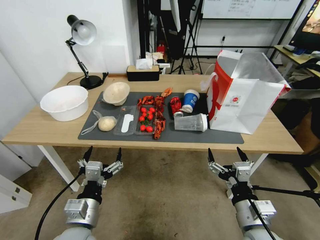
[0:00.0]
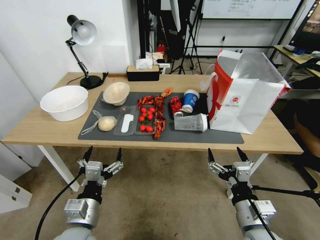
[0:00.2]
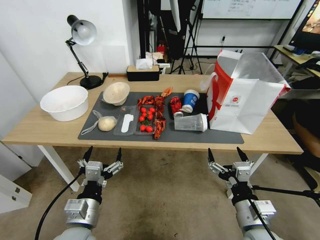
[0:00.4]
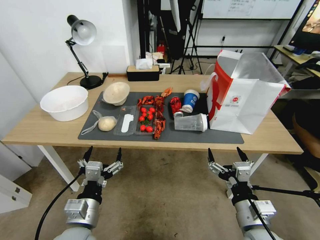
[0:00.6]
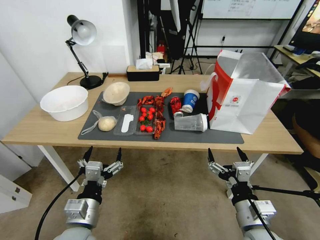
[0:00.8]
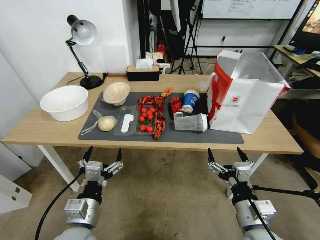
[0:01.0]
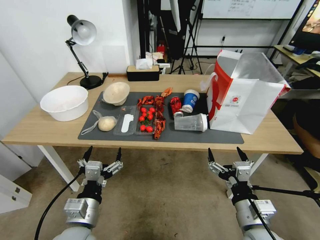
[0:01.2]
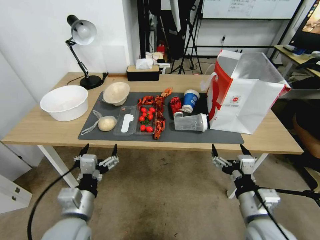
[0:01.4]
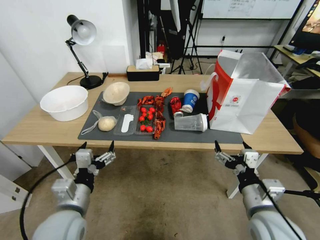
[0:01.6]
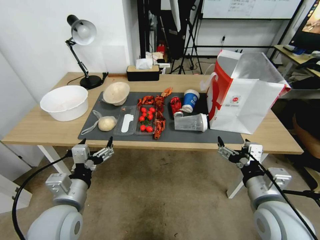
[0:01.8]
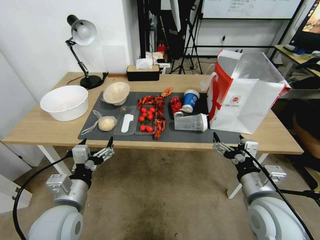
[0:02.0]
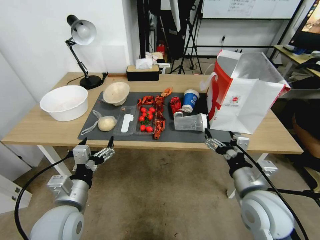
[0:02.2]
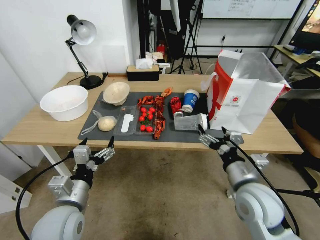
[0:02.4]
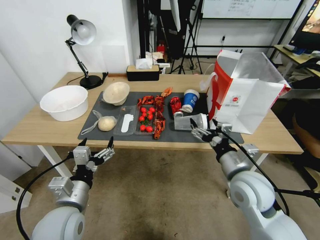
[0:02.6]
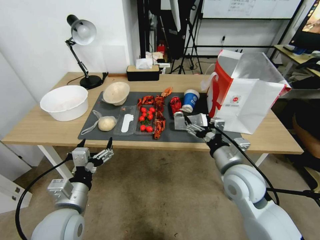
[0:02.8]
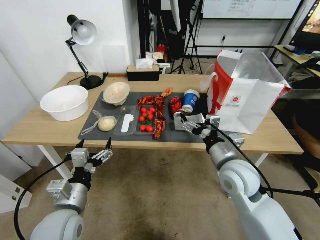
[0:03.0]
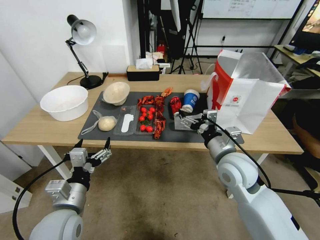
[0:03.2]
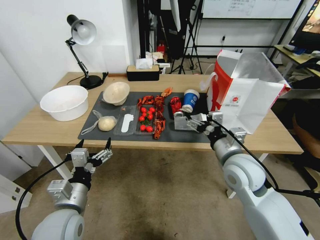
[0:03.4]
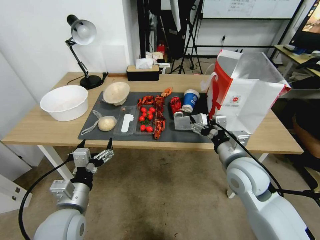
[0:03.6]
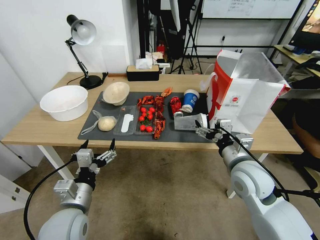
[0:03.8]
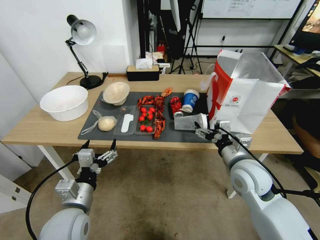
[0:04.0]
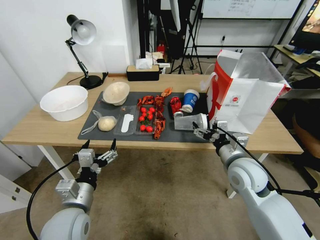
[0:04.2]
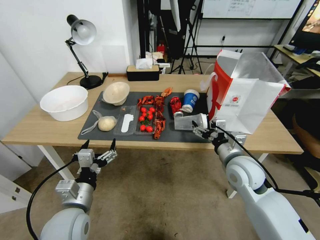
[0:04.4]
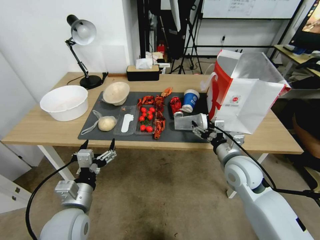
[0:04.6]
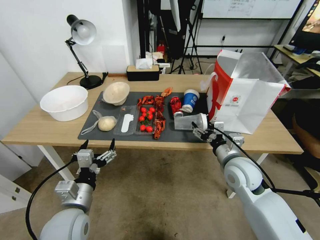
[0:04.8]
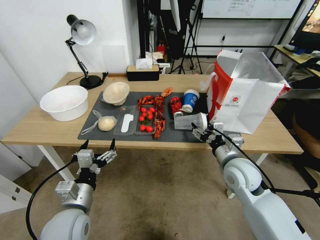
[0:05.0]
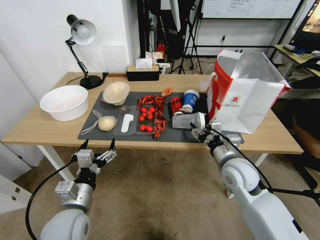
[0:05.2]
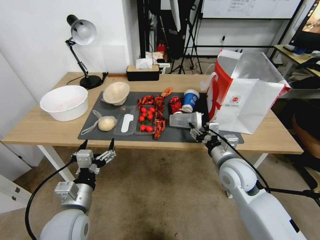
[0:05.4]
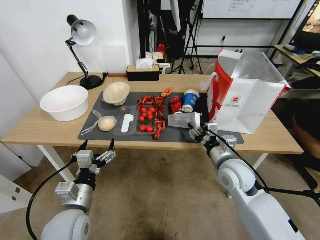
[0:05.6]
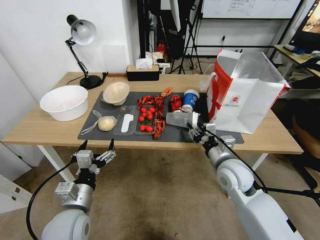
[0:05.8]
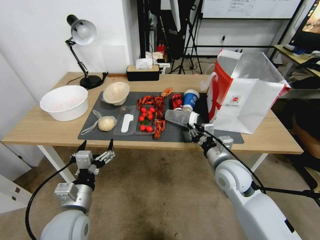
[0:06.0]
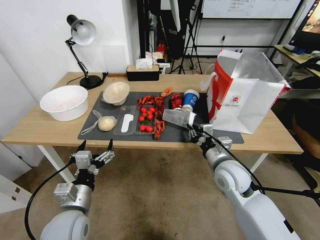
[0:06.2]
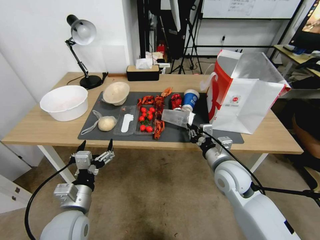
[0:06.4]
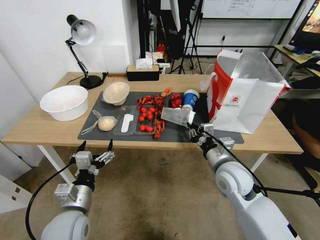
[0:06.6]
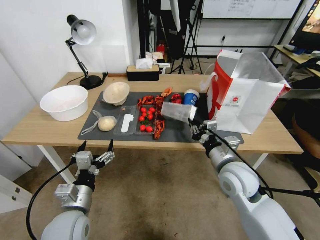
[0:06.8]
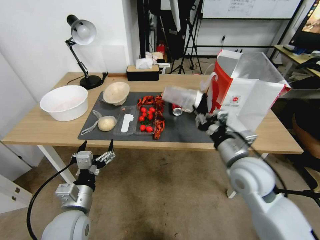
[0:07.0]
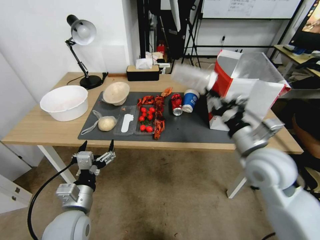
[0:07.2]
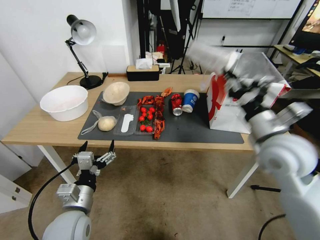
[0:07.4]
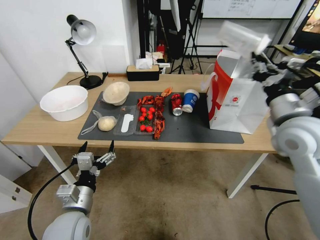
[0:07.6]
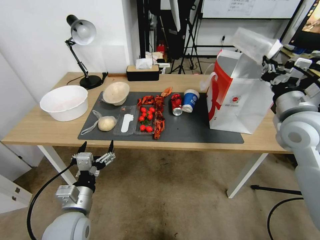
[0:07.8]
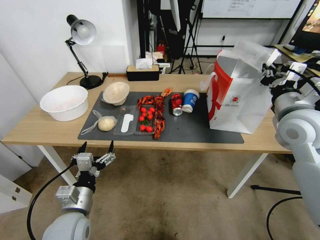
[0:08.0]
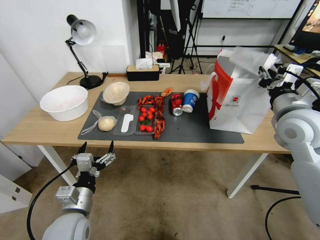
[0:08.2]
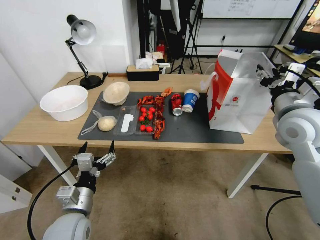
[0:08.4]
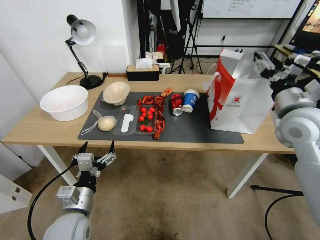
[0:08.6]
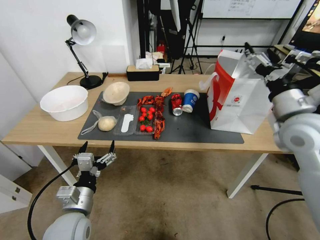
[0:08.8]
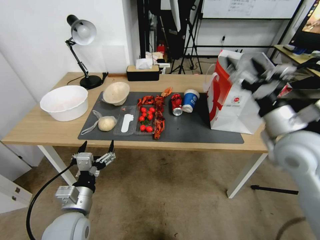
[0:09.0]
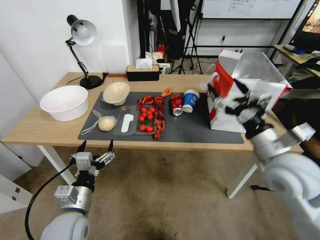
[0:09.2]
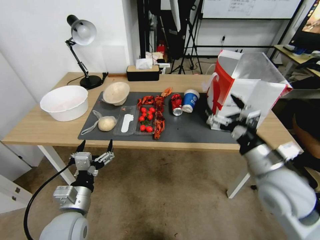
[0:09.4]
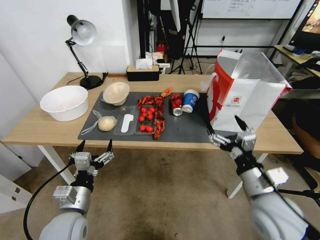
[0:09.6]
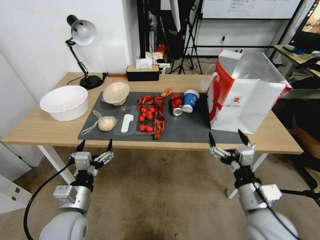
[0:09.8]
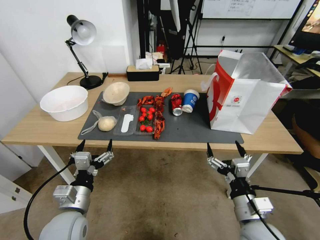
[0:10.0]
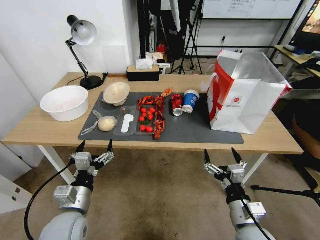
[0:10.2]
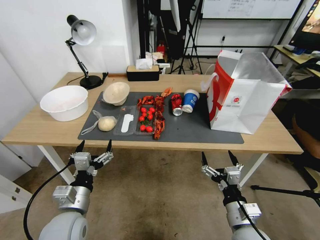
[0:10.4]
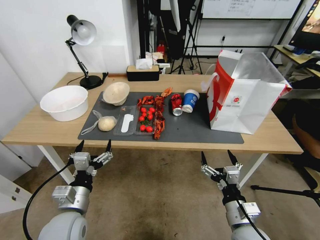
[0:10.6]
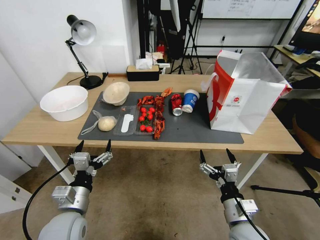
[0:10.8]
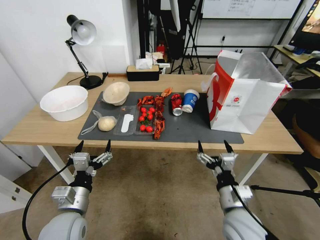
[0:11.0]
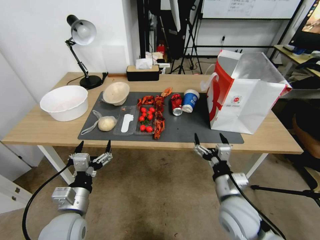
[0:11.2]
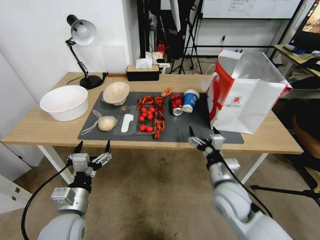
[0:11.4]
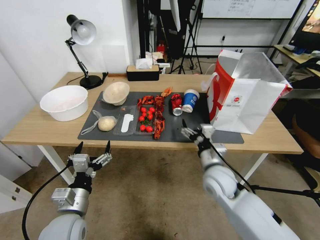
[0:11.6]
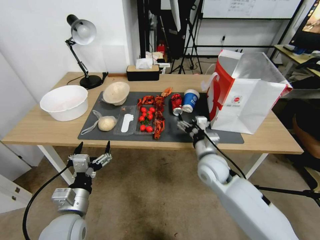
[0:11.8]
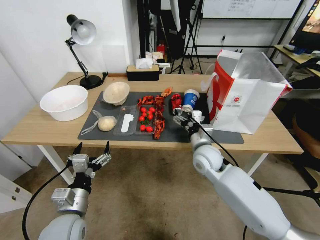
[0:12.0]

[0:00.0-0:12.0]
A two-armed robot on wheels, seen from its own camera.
0:01.6 to 0:03.0: The right gripper is displaced forward by approximately 10 cm.
0:03.0 to 0:04.4: The right gripper changes place by roughly 5 cm.
0:04.4 to 0:06.0: The right gripper closes up.
0:06.0 to 0:07.6: The right gripper is displaced upward and to the right by roughly 20 cm.
0:07.6 to 0:09.0: The right gripper opens up.
0:09.0 to 0:10.4: The right gripper shifts some 25 cm downward and backward.
0:10.4 to 0:12.0: The right gripper shifts approximately 25 cm forward.

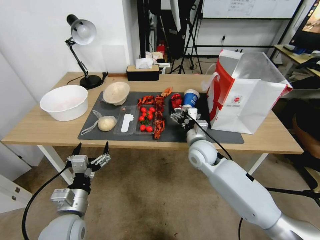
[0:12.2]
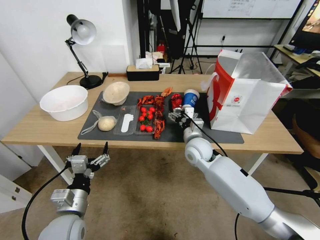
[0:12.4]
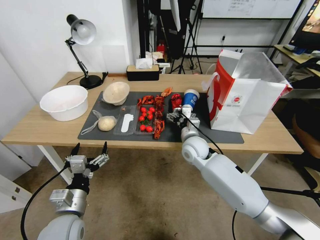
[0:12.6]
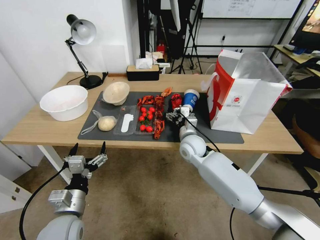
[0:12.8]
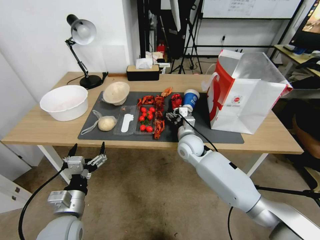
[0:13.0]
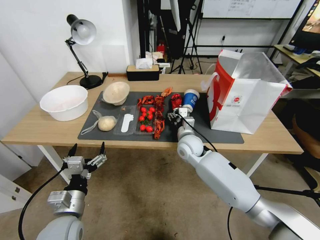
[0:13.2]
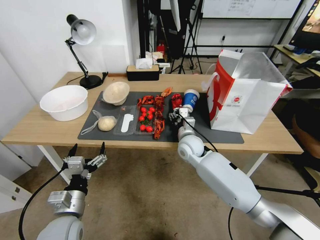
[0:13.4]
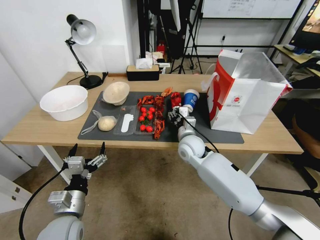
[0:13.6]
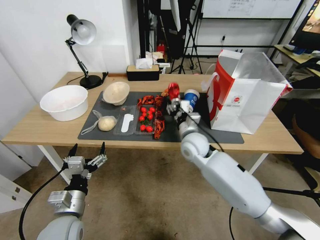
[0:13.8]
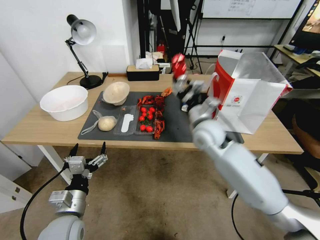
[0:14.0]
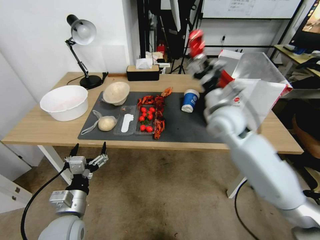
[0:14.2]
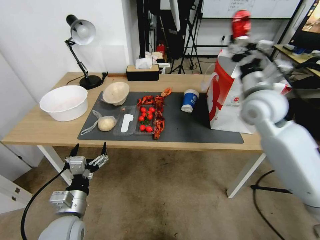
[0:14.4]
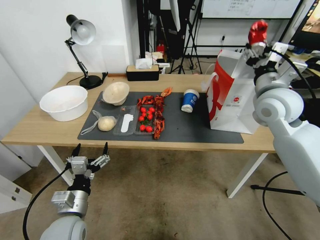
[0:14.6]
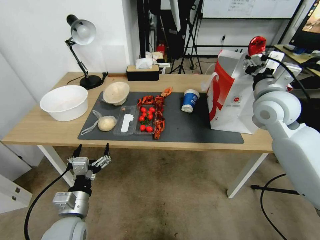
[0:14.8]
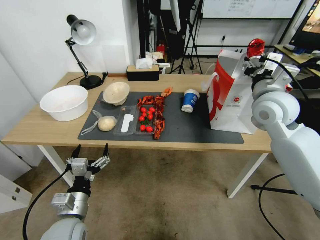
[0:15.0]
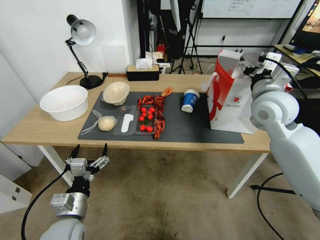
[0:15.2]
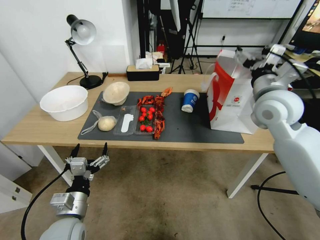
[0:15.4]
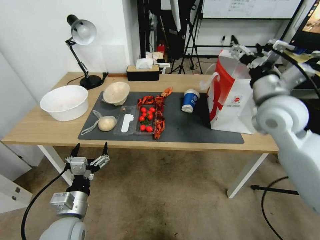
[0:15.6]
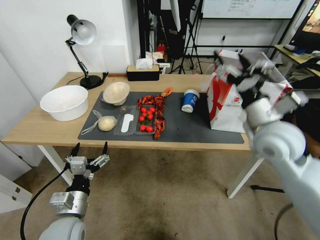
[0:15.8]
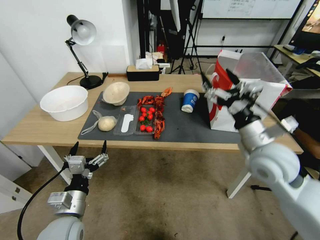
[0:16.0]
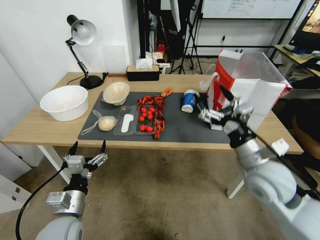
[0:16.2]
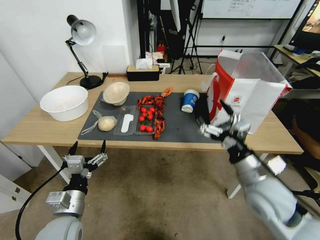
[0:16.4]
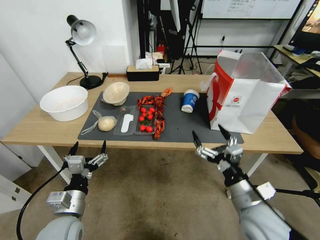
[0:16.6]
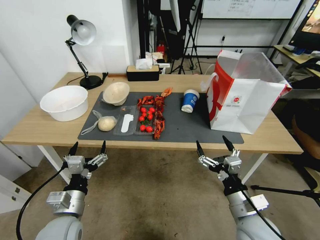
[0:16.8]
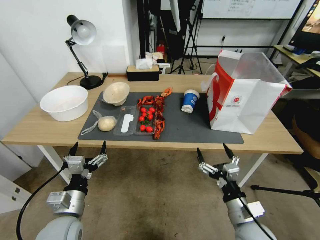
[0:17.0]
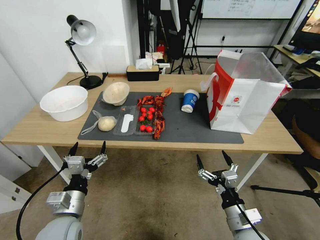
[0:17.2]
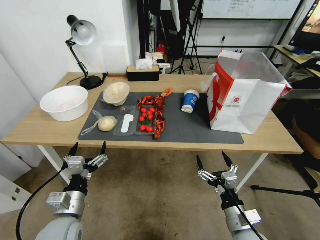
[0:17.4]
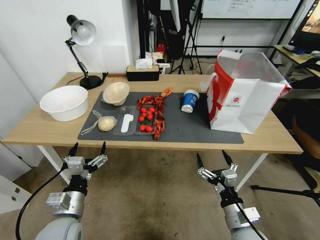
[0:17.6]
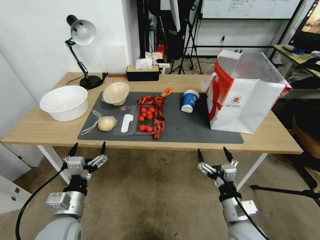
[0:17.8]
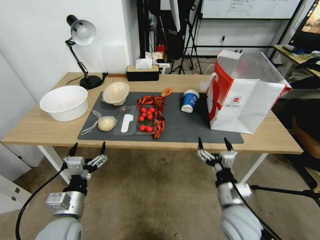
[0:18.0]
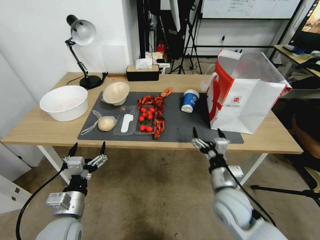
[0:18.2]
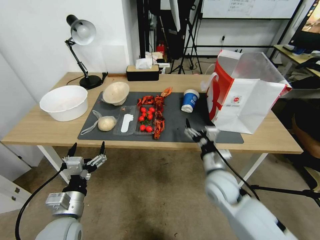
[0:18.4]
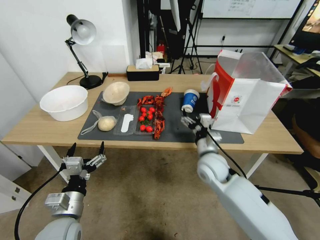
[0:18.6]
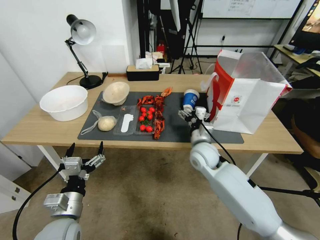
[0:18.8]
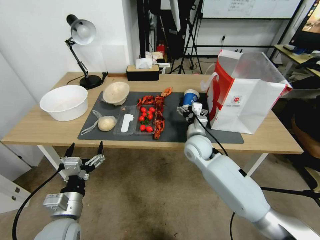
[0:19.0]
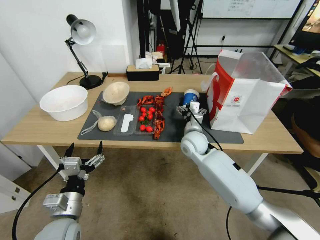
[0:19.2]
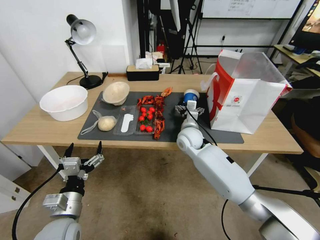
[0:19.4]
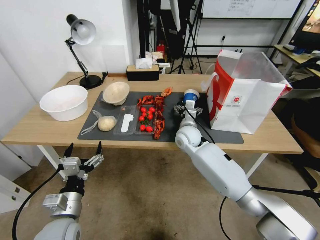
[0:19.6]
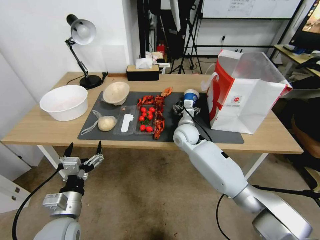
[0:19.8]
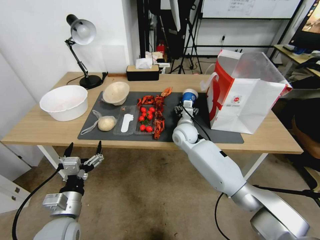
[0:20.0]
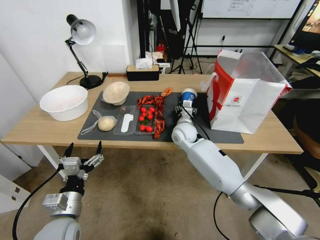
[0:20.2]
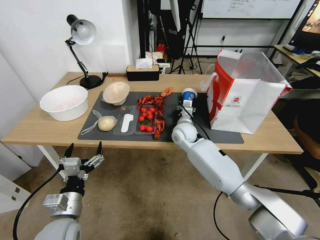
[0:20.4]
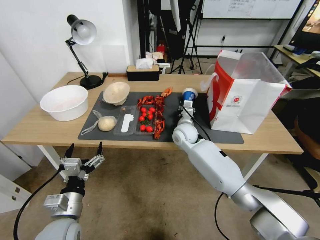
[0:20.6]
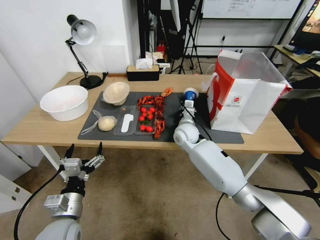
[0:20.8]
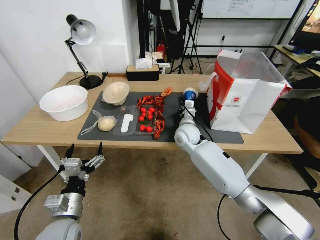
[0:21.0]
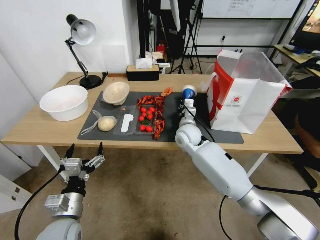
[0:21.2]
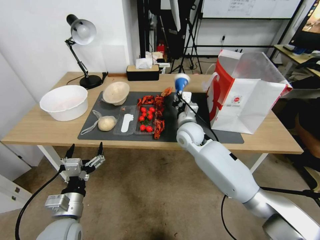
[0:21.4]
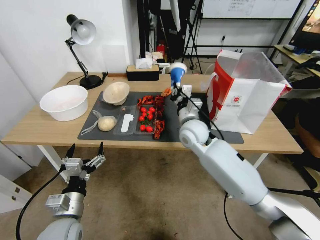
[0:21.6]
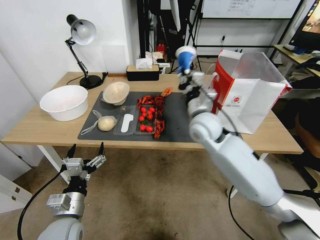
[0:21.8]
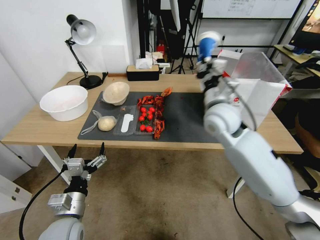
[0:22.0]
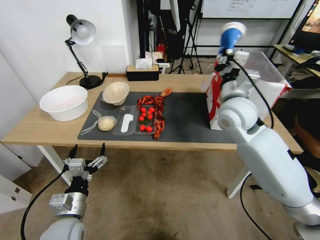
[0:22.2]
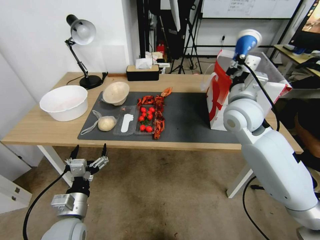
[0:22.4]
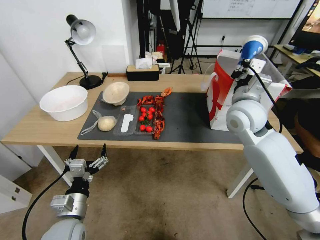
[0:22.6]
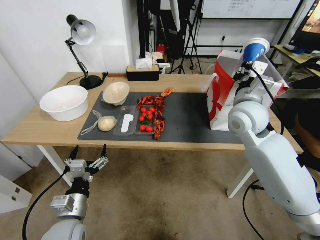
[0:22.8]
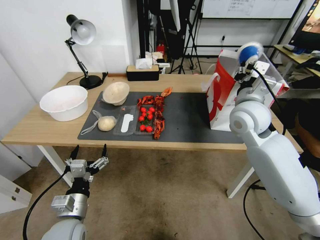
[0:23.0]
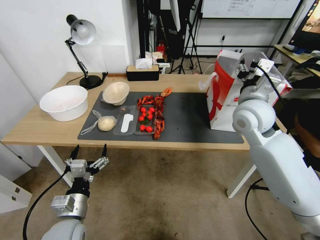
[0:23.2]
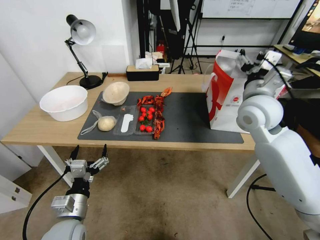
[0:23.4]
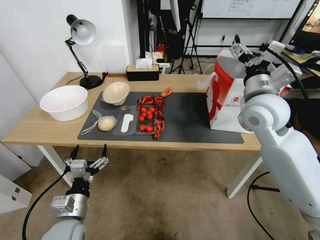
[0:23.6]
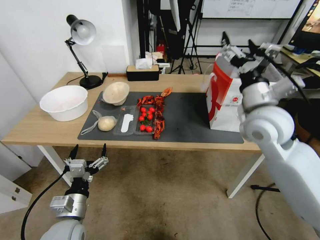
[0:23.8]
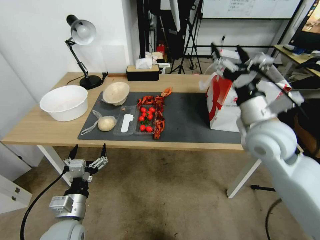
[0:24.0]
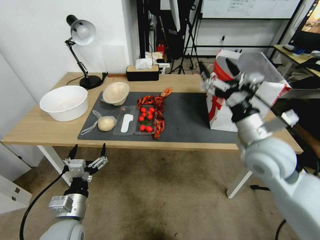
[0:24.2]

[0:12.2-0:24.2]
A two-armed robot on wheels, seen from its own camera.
0:12.2 to 0:13.8: The right gripper closes its fingers.
0:13.8 to 0:15.2: The right gripper heads upward and to the right, covering approximately 25 cm.
0:15.2 to 0:16.6: The right gripper heads backward and downward, covering approximately 30 cm.
0:16.6 to 0:18.2: The right gripper heads downward, covering some 5 cm.
0:18.2 to 0:19.8: The right gripper is displaced forward by about 30 cm.
0:19.8 to 0:21.2: The right gripper closes its fingers.
0:21.2 to 0:22.6: The right gripper travels upward and to the right by approximately 20 cm.
0:22.6 to 0:24.2: The right gripper moves backward, roughly 10 cm, and opens.
